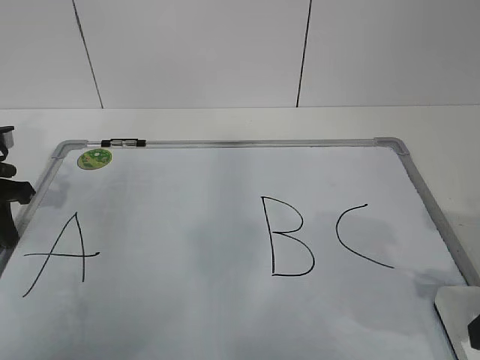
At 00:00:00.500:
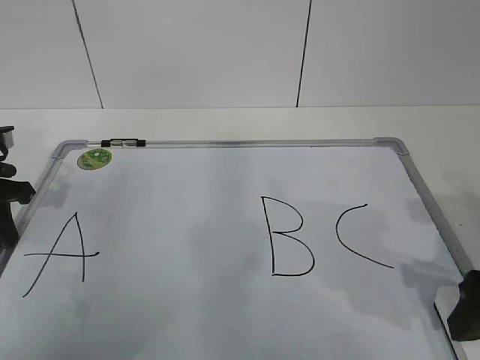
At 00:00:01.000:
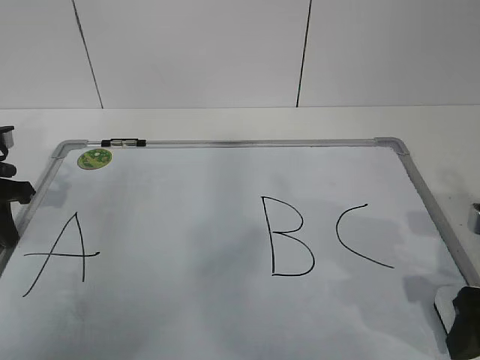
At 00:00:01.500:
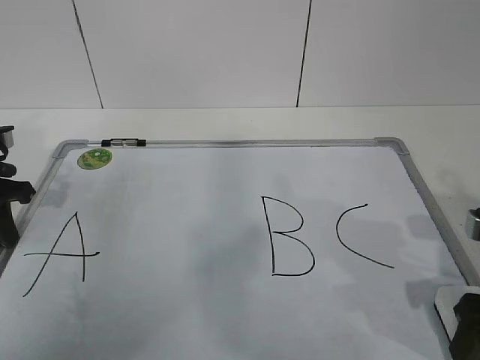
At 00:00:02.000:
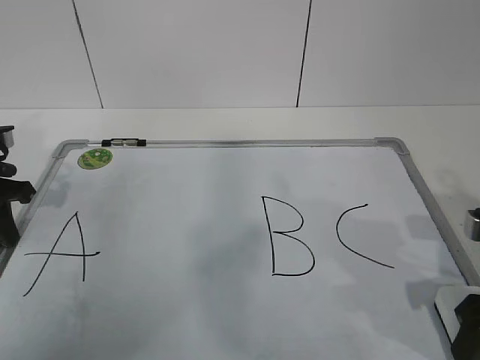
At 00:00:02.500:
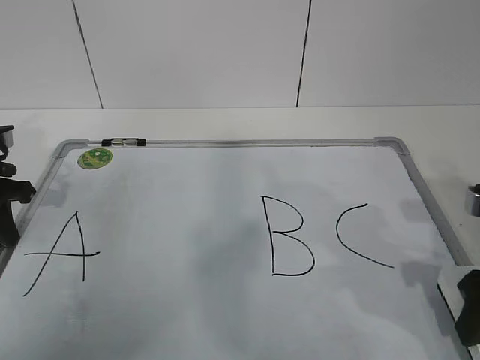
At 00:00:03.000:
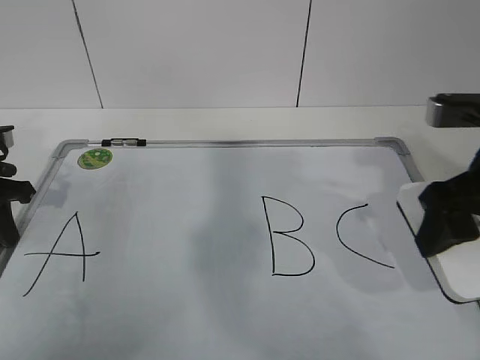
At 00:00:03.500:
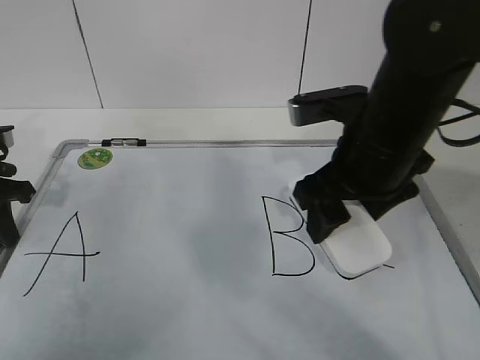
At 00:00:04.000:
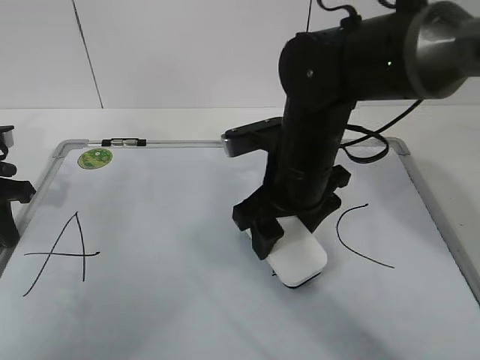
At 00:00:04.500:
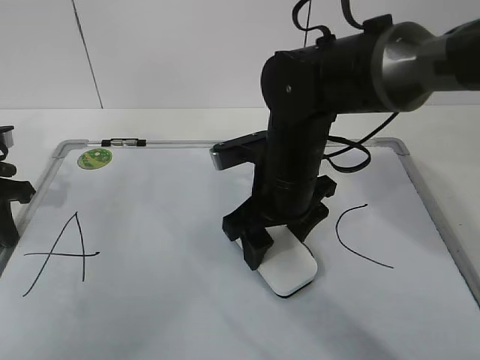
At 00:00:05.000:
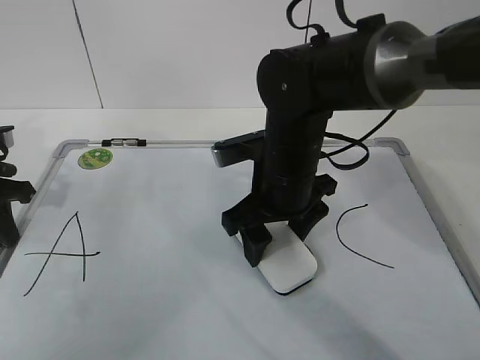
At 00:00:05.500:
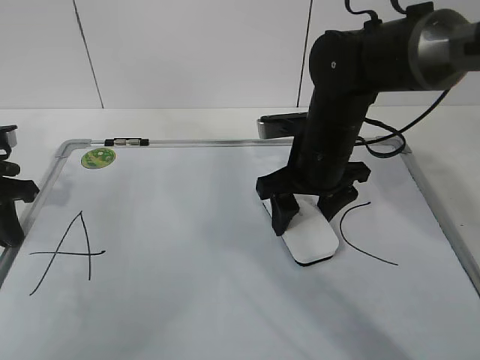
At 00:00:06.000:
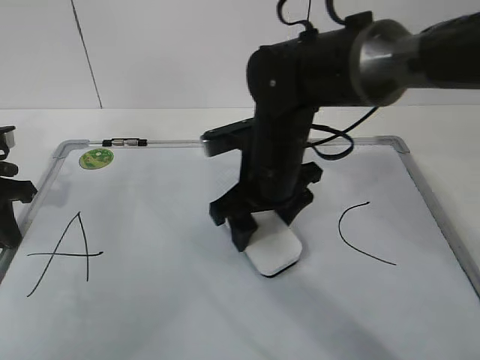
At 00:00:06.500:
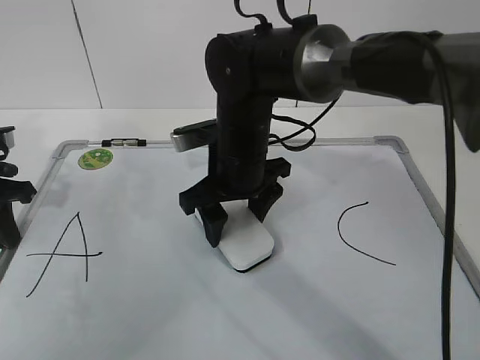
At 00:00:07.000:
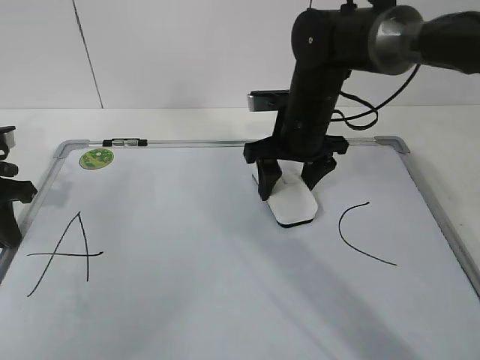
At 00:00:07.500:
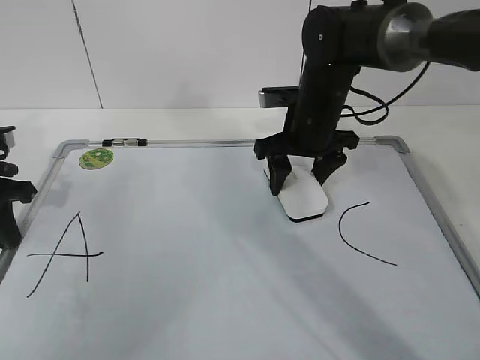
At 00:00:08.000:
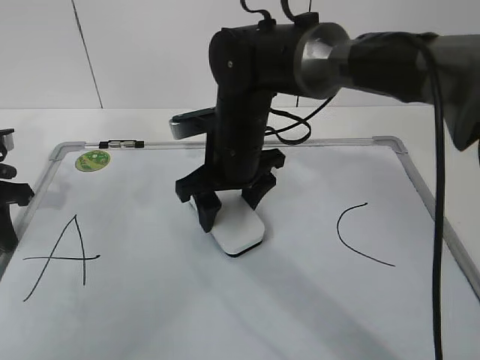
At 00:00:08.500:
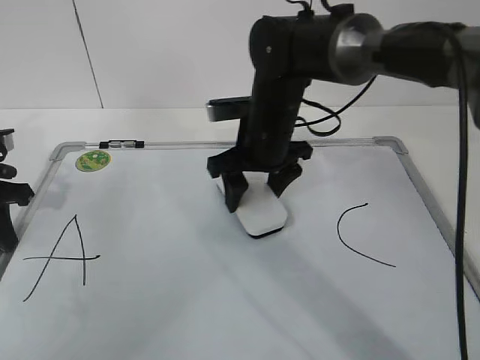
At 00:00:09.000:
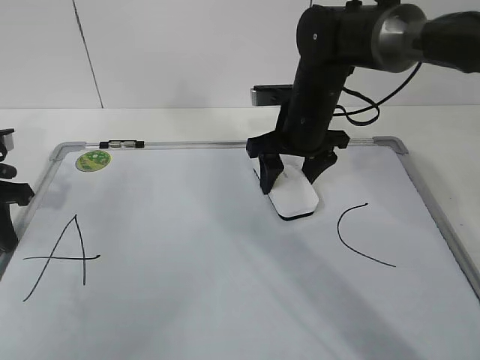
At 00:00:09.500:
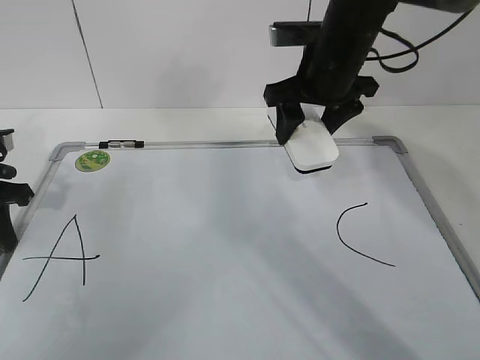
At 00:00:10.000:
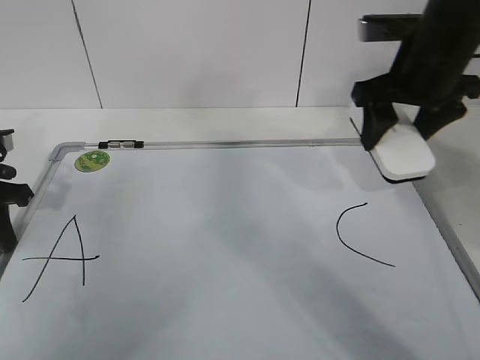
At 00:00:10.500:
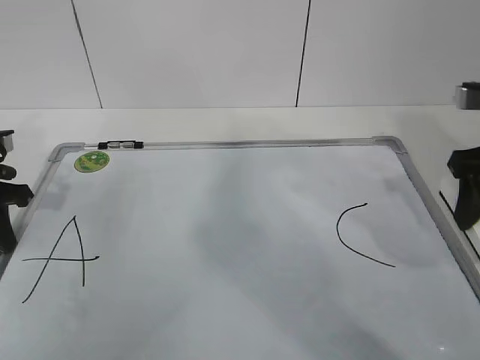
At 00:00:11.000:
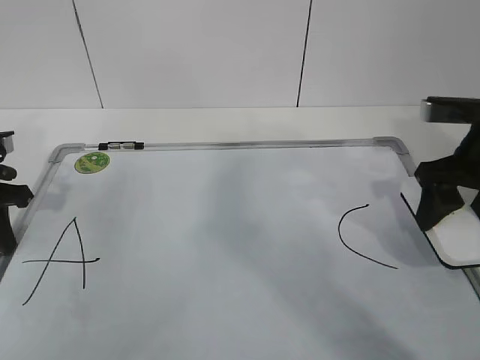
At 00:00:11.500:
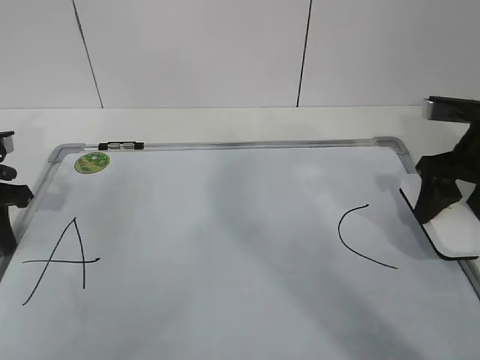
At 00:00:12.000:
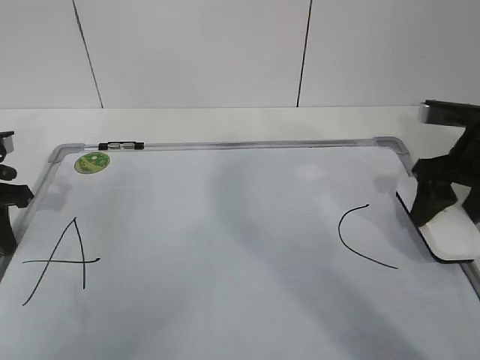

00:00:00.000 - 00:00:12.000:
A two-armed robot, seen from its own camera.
Task of the whole recording: pick up the eraser on the blackboard and erase the letter "B".
Step, 00:00:00.500 - 00:00:06.000: Erase the letter B with your right hand.
Step, 00:00:06.500 - 00:00:09.000: Put down the eraser with your right hand.
00:00:00.000 - 00:00:02.000: The right gripper closes up.
00:00:02.000 - 00:00:04.000: The right gripper shifts approximately 25 cm to the left and forward.
00:00:06.000 - 00:00:08.000: The right gripper swings left and right, some 10 cm each way, with 2 reversals.
00:00:08.000 - 00:00:10.000: The right gripper shifts some 20 cm to the right and upward.
00:00:10.000 - 00:00:12.000: The right gripper moves to the right and downward, some 10 cm.

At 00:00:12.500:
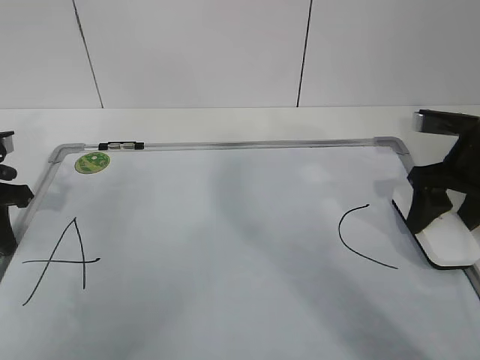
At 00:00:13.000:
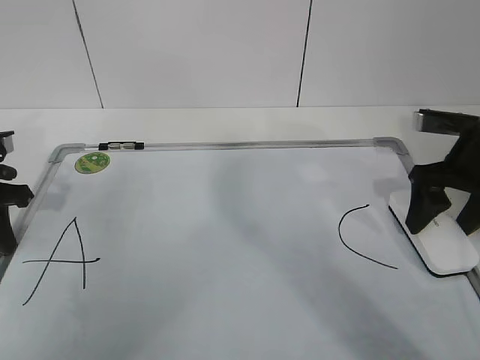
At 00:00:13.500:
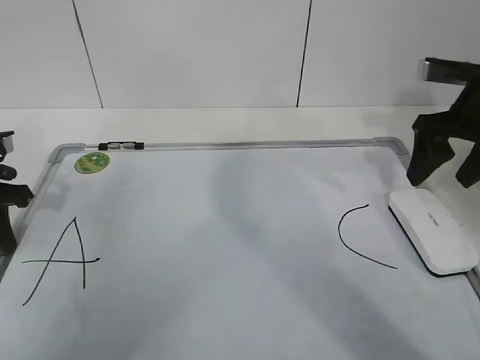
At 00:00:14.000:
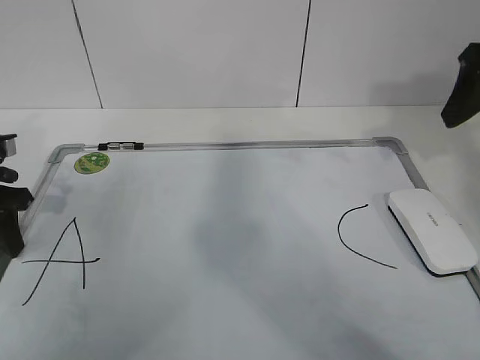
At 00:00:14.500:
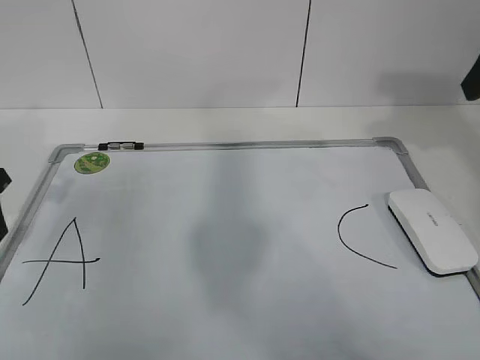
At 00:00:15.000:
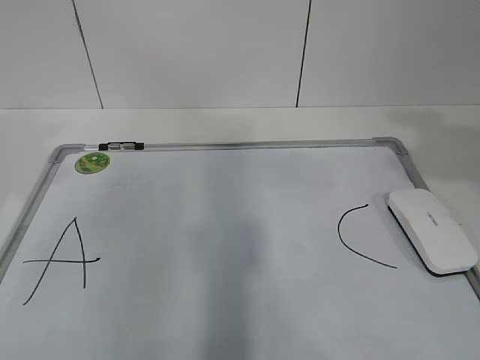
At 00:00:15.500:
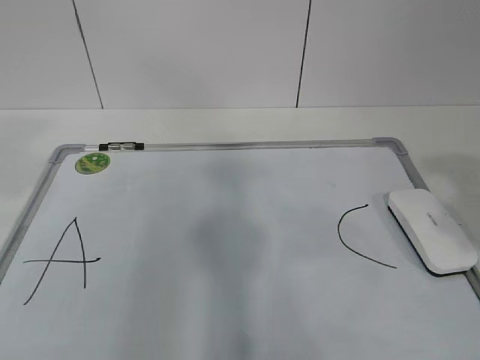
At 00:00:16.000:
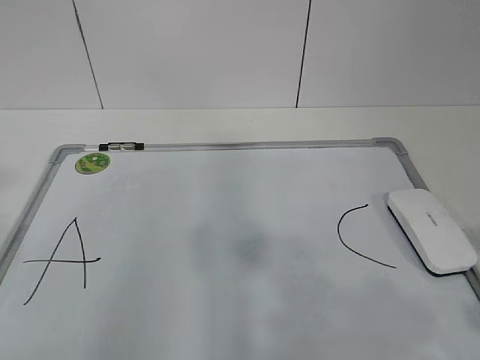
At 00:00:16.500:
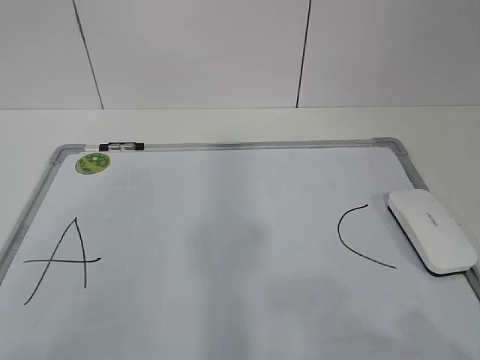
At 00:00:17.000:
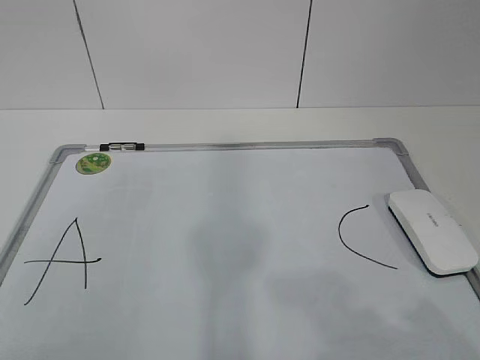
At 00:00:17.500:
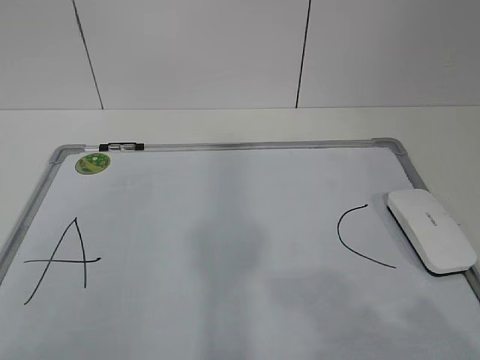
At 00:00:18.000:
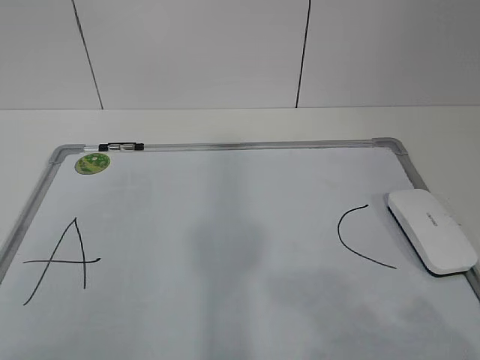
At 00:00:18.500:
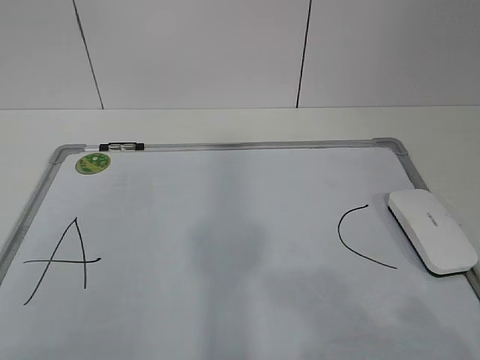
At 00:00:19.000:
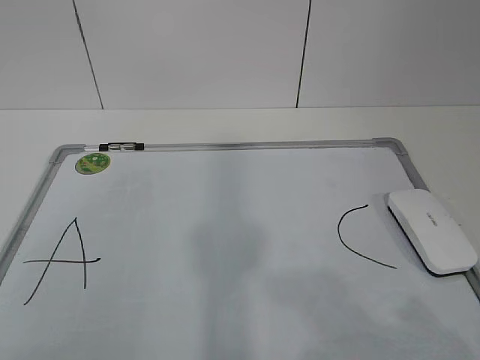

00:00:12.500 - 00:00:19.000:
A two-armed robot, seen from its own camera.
Task of the whole recording: pick up the eraser on the blackboard and erase the letter "B".
00:00:12.500 - 00:00:14.500: The right gripper shifts approximately 20 cm upward, and opens, then closes once more. The left gripper opens.
00:00:14.500 - 00:00:17.000: Both grippers move backward, approximately 30 cm. The left gripper closes.
00:00:17.000 - 00:00:19.000: The two grippers keep their place.
